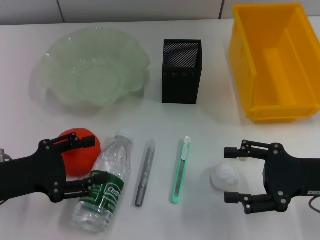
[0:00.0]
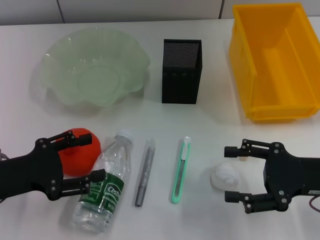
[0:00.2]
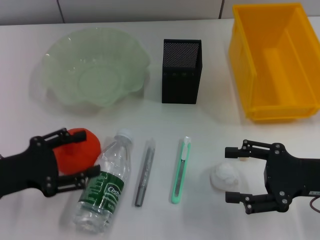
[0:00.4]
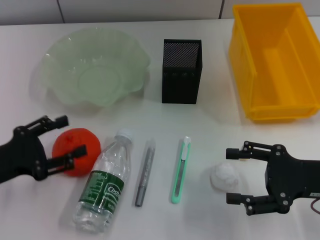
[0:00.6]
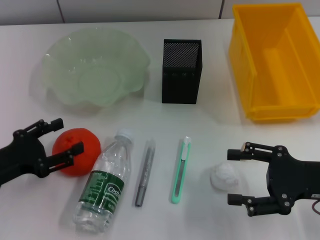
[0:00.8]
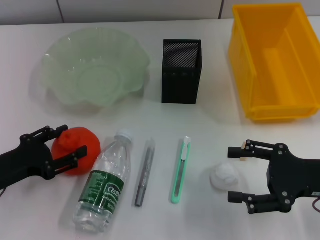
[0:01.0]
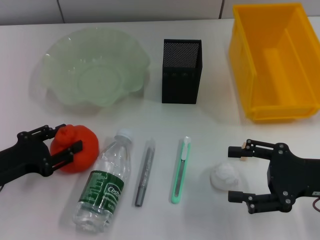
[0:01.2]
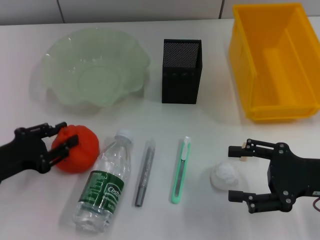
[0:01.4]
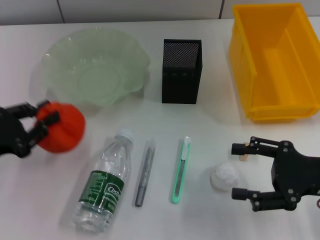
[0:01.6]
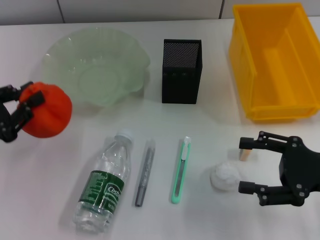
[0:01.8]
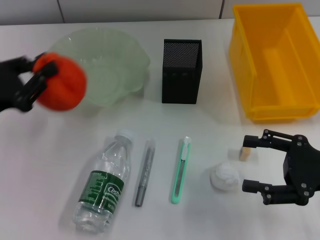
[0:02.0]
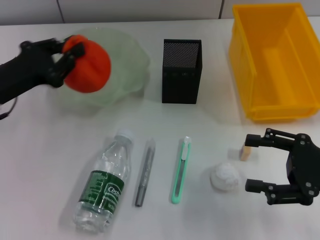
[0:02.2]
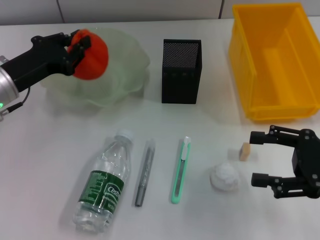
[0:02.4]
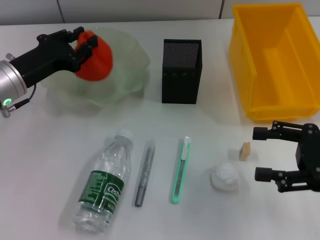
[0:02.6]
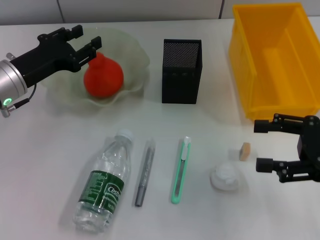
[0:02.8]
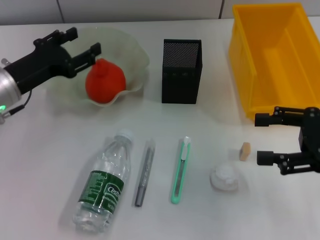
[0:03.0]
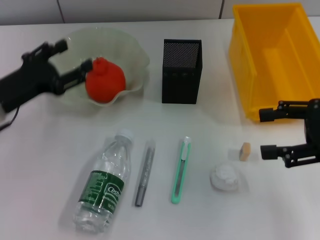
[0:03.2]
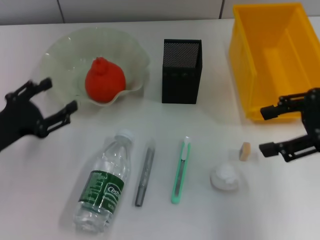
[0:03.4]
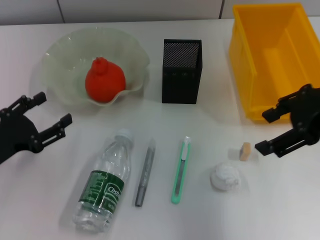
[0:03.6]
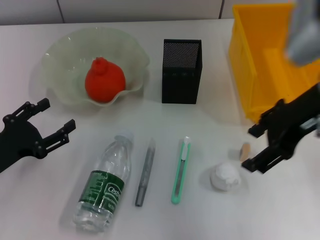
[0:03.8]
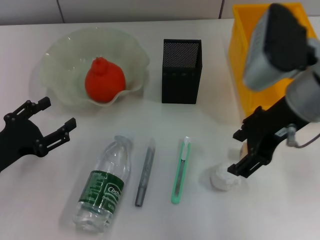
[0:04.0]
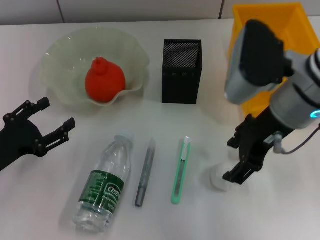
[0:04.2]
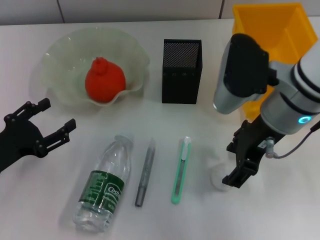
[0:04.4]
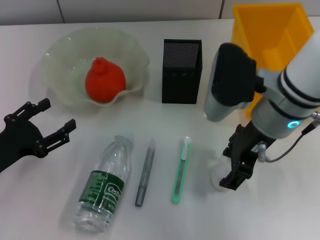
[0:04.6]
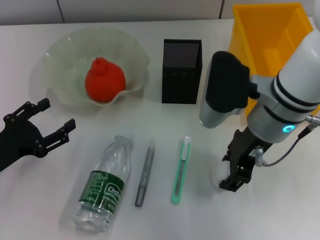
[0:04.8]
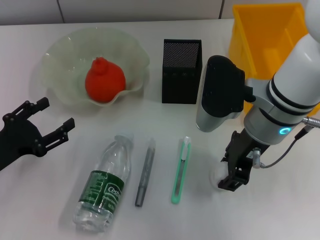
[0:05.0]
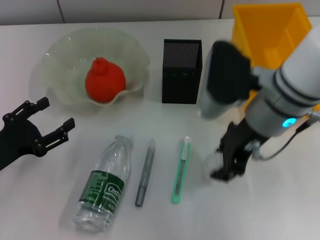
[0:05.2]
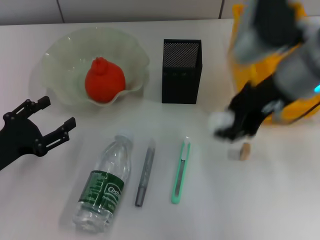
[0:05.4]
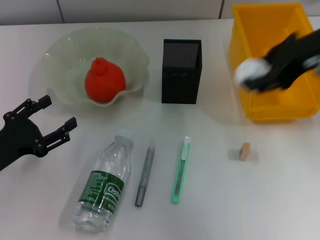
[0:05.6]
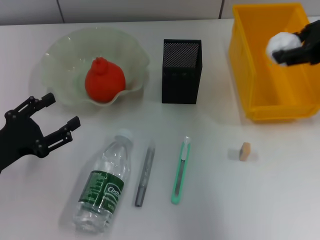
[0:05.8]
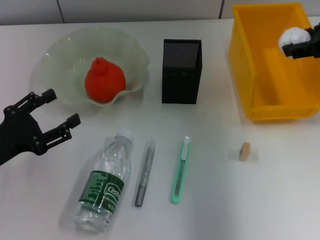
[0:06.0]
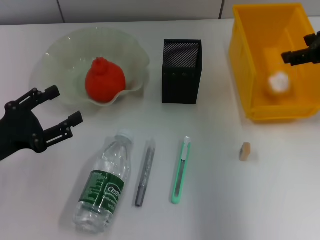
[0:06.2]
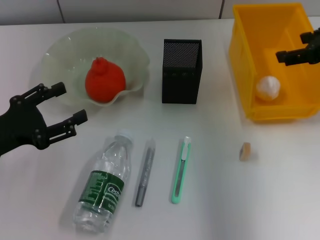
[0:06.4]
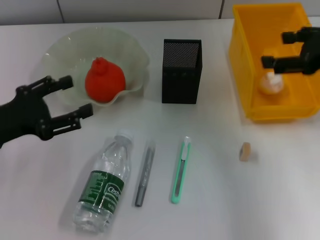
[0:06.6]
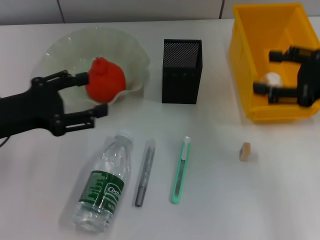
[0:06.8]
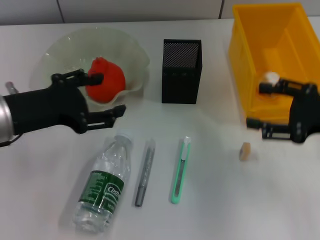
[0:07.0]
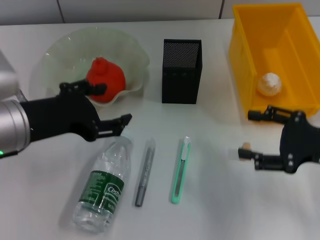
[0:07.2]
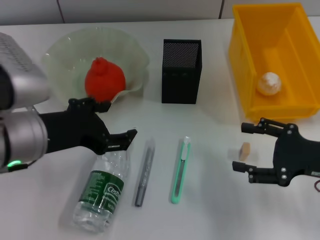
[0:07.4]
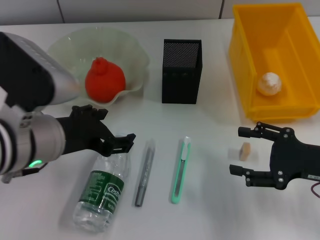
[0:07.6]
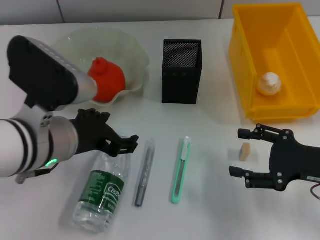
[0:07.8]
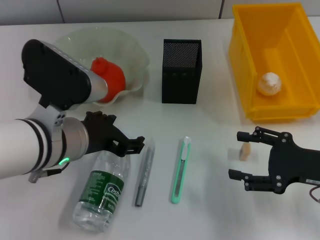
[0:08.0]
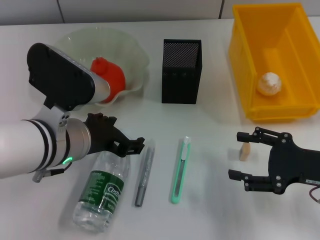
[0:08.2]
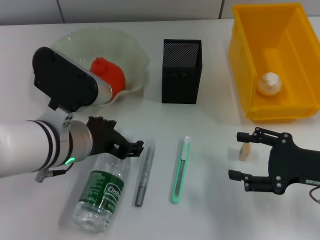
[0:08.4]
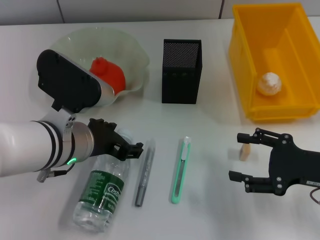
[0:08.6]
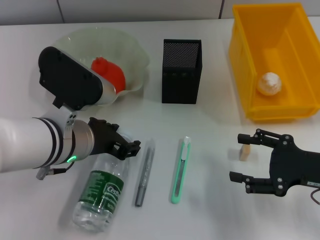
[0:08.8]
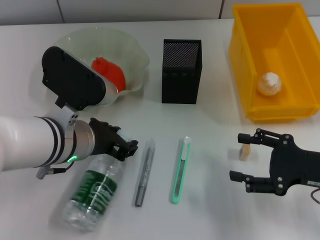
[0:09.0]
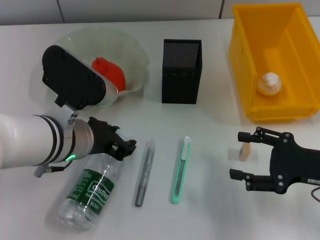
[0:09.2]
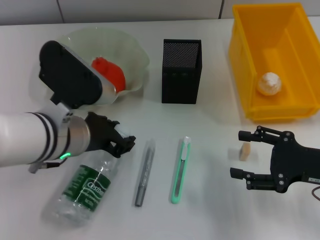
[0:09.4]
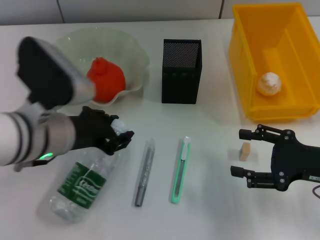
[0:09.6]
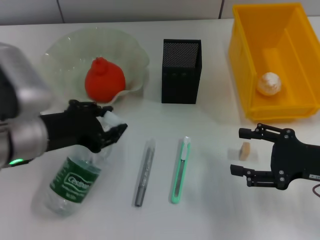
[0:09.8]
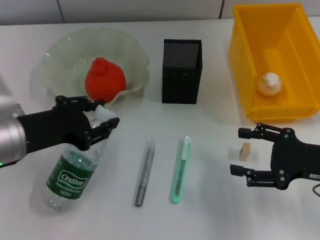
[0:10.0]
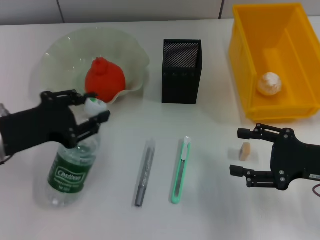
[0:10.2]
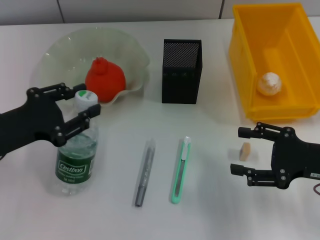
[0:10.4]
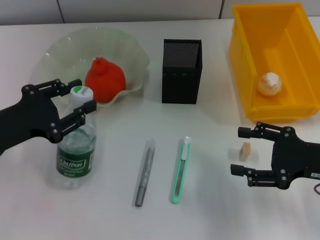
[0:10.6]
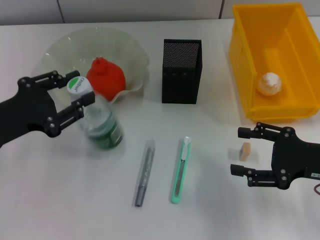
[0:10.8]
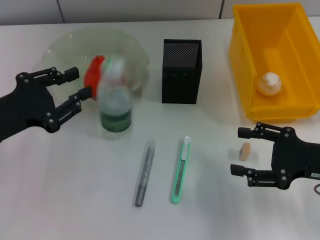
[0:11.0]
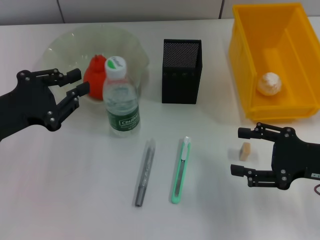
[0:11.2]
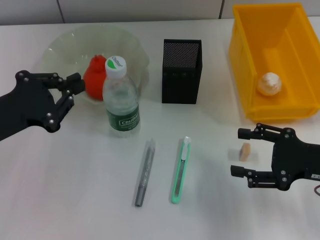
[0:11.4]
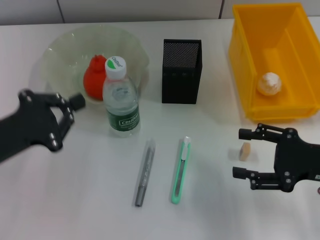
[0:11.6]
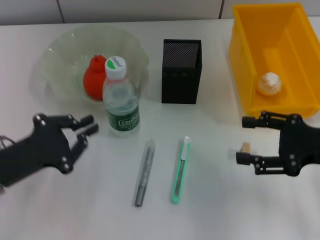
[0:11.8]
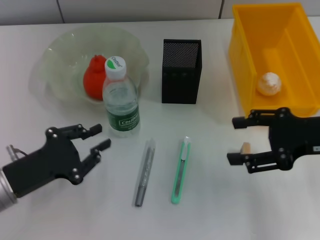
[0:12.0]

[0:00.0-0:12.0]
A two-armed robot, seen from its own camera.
Step, 0:00.0 to 0:01.2: Grab the orange with the left hand.
Step, 0:01.6 to 0:02.8: Place the orange into the fruit bowl with the left hand.
Step, 0:03.0 to 0:04.8: Grab the paper ball with the right hand.
Step, 0:05.2 to 0:06.2: Place the paper ball into the trash can with the right hand.
Step, 0:06.4 to 0:09.4: Grab the water bottle with the left hand.
Step, 0:09.6 to 0:11.8: Place the water bottle on the table with the left hand.
0:00.0 to 0:01.6: The left gripper closes.
0:01.6 to 0:03.0: The left gripper heads forward and to the right, covering approximately 15 cm, while the right gripper heads upward, covering about 5 cm.
0:03.0 to 0:04.4: The right gripper goes approximately 15 cm to the left. The left gripper goes about 10 cm backward and downward.
0:04.4 to 0:06.0: The right gripper goes some 15 cm to the right and upward.
0:06.0 to 0:07.6: The right gripper shifts some 20 cm downward and backward, and opens up. The left gripper moves to the right and upward, about 15 cm.
0:07.6 to 0:09.0: The left gripper ends up some 5 cm from where it was, and closes.
0:09.0 to 0:10.4: The left gripper moves to the left, approximately 15 cm.
0:10.4 to 0:12.0: The left gripper travels downward by roughly 5 cm, and closes its fingers; the right gripper is displaced upward by approximately 5 cm.

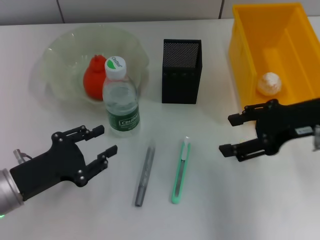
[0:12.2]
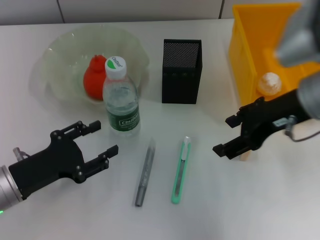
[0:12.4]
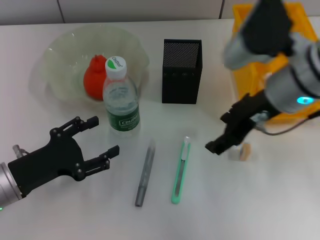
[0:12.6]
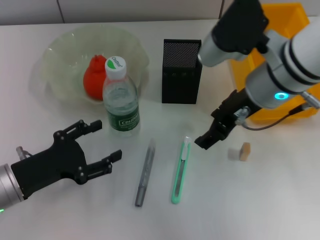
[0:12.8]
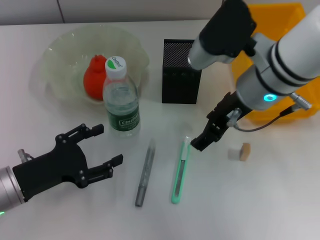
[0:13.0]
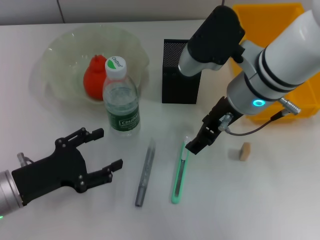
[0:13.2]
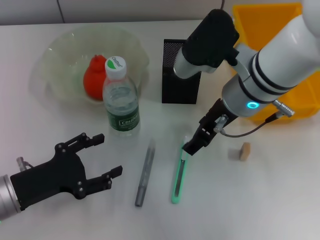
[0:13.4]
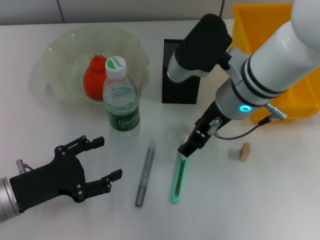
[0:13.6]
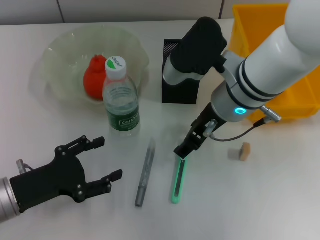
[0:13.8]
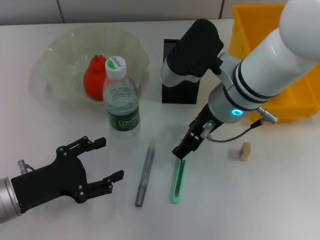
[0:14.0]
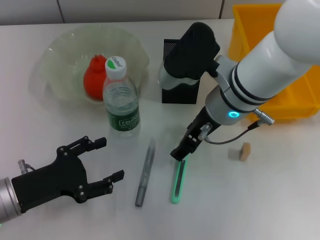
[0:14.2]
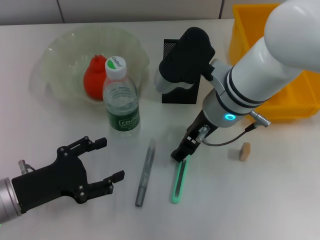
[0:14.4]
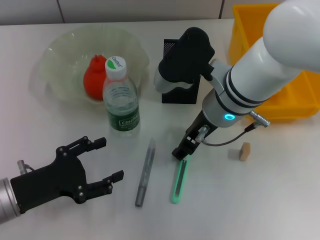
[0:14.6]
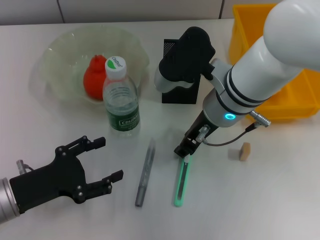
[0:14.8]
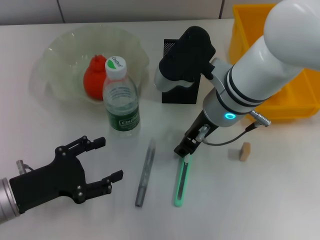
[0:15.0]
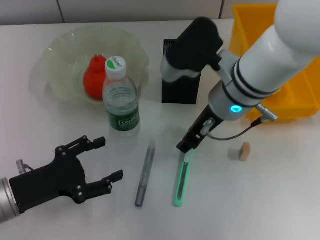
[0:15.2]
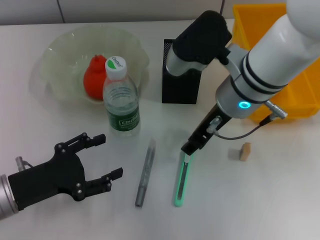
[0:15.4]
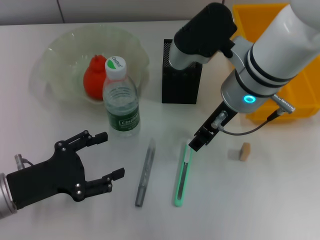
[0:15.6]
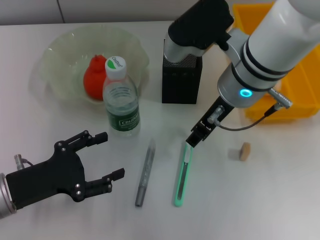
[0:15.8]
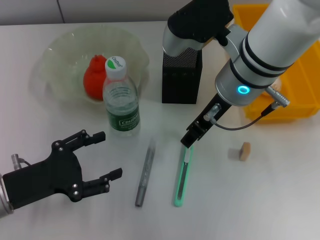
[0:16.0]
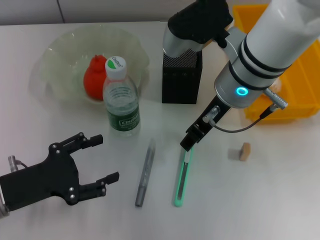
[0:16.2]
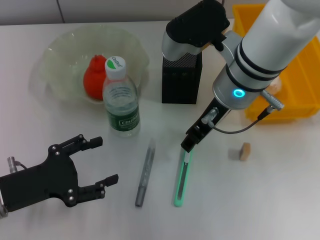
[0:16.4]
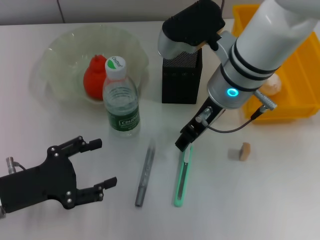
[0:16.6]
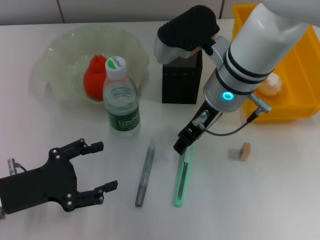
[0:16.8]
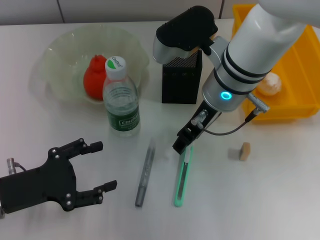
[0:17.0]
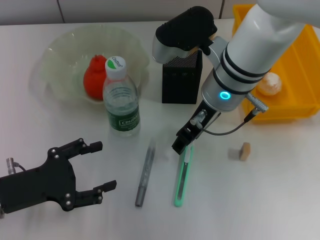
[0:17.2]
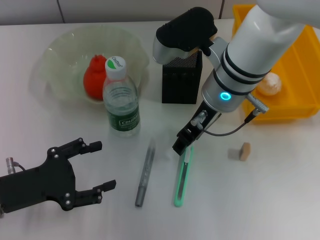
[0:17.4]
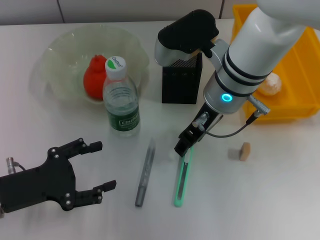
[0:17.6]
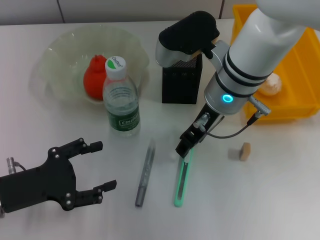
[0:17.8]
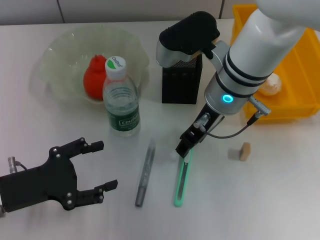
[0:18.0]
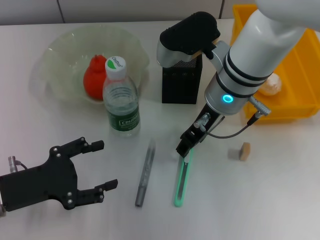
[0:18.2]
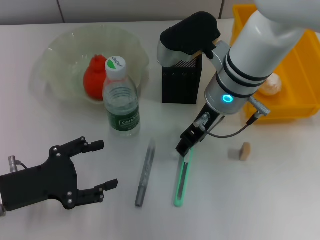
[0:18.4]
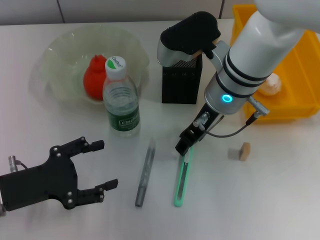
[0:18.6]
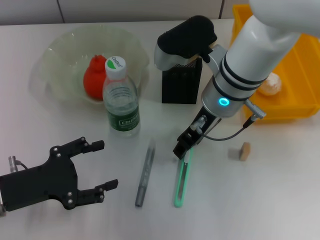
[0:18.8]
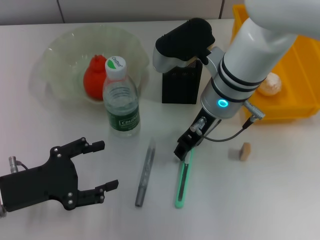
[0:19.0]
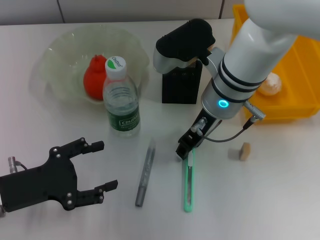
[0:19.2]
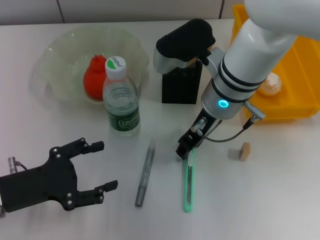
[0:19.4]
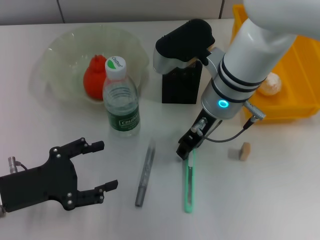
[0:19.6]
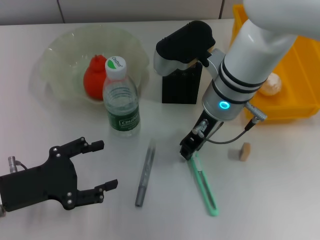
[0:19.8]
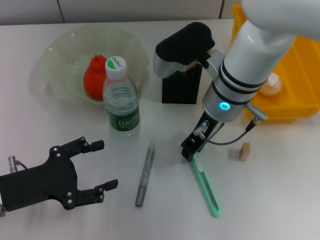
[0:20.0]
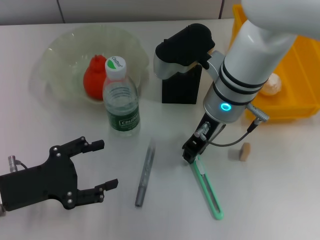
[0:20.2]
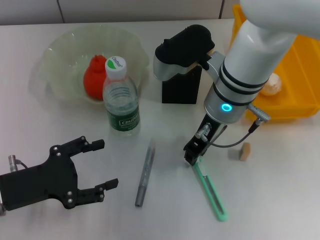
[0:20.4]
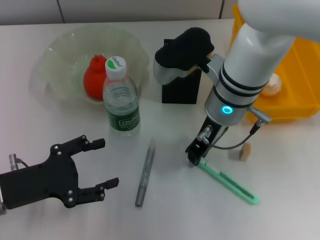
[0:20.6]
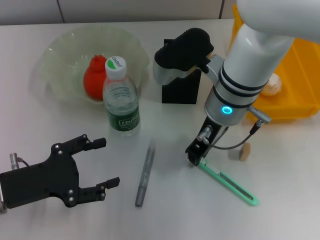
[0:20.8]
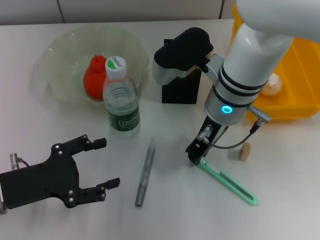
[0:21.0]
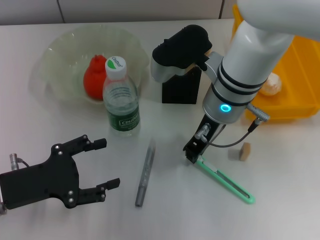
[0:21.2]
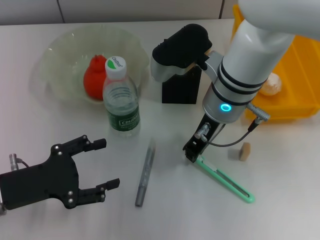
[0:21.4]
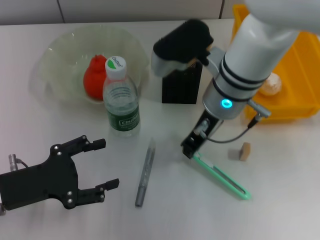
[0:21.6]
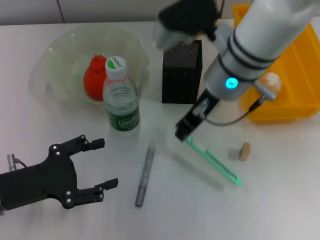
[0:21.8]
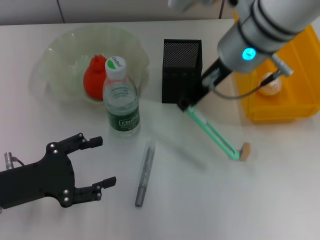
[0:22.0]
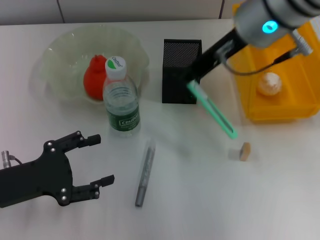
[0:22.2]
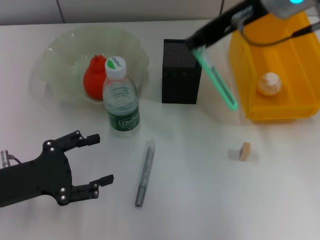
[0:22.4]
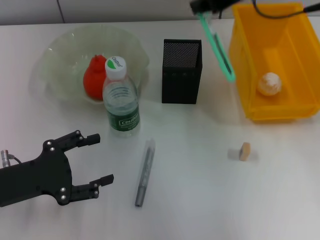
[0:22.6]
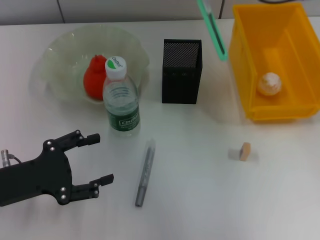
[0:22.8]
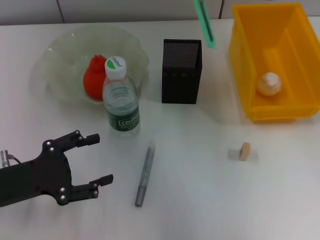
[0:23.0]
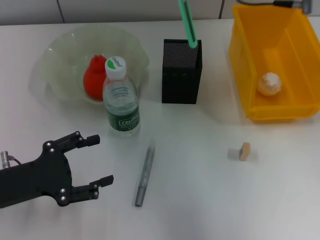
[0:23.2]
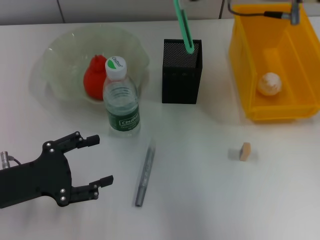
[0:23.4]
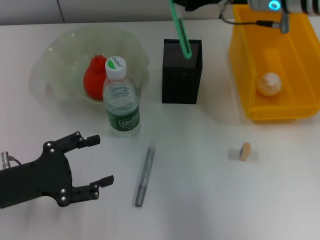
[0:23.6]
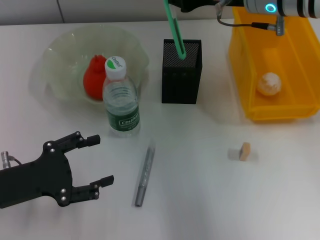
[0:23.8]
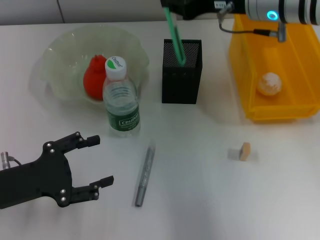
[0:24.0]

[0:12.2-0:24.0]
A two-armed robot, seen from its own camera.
Step, 0:12.2 to 0:15.0: Grab the blue utility knife with the right hand.
0:12.2 to 0:13.6: The right gripper shifts roughly 15 cm to the left; the left gripper opens.
0:13.6 to 0:15.2: The right gripper closes.
0:15.2 to 0:18.2: The grippers stay close to where they were, moving slightly.
0:18.2 to 0:19.6: Both grippers stay put.
0:19.6 to 0:21.0: The right gripper closes up.
0:21.0 to 0:22.6: The right gripper is displaced upward and to the right by some 20 cm.
0:22.6 to 0:24.0: The right gripper is displaced downward by roughly 10 cm.
